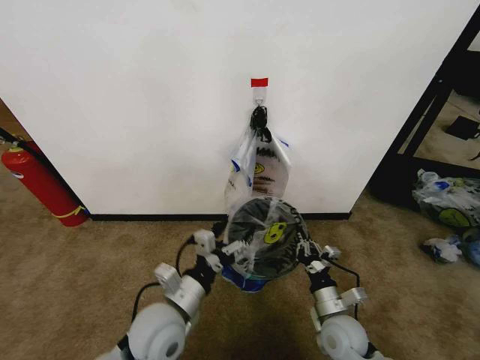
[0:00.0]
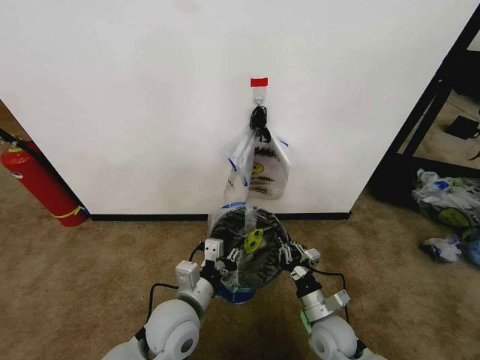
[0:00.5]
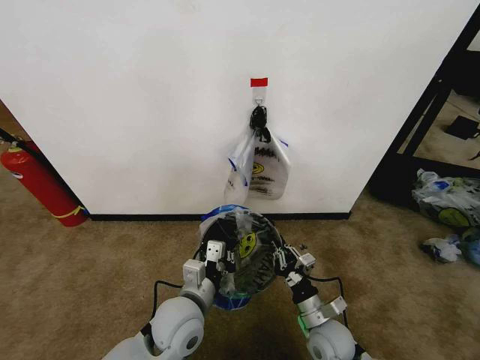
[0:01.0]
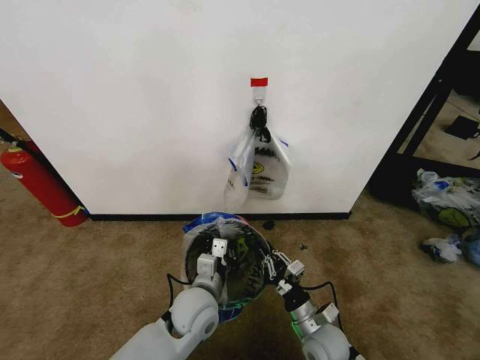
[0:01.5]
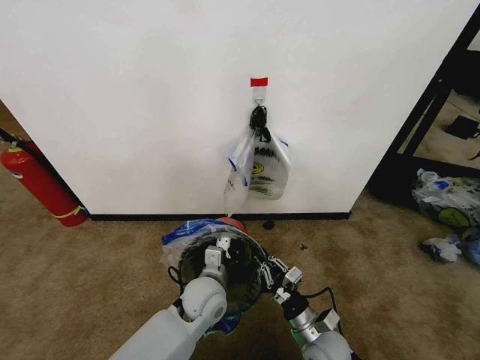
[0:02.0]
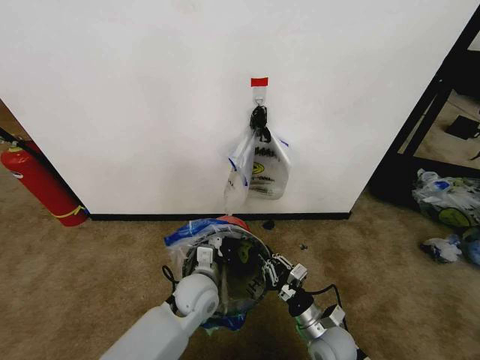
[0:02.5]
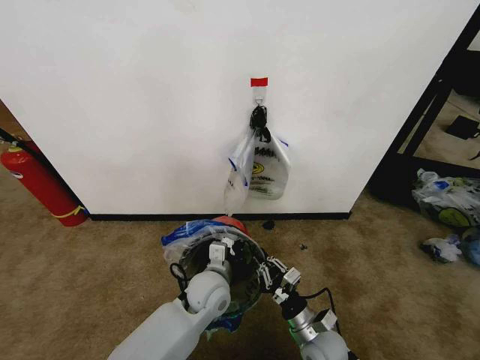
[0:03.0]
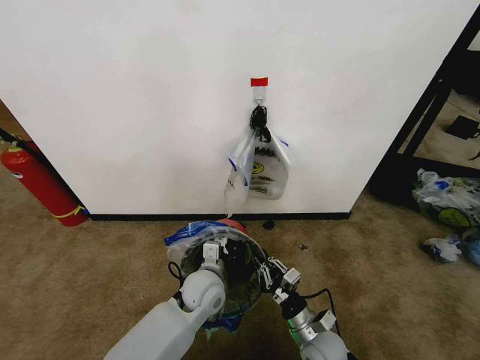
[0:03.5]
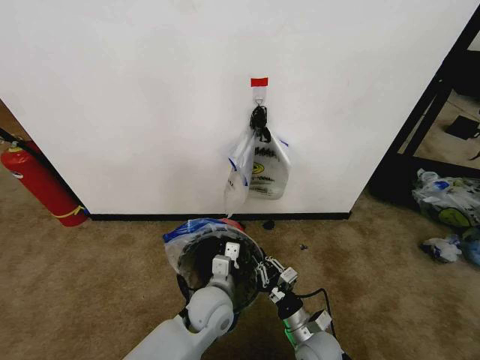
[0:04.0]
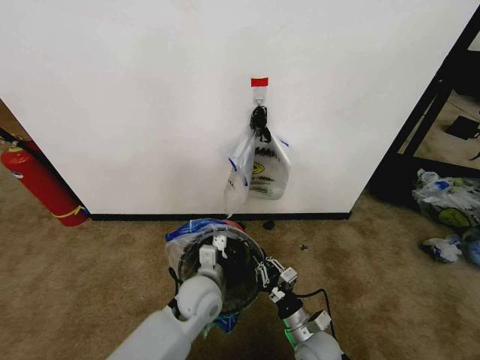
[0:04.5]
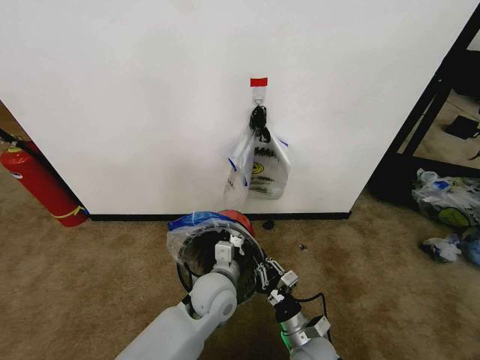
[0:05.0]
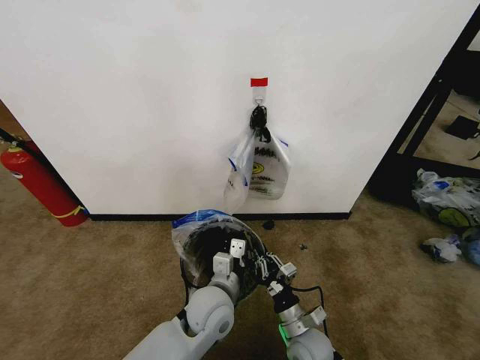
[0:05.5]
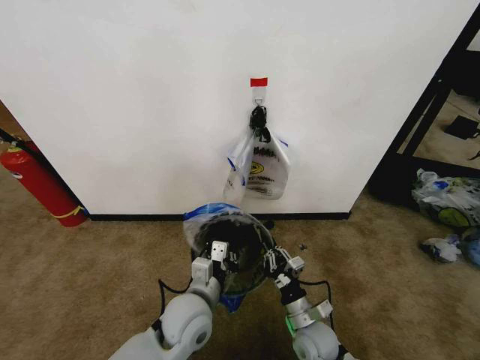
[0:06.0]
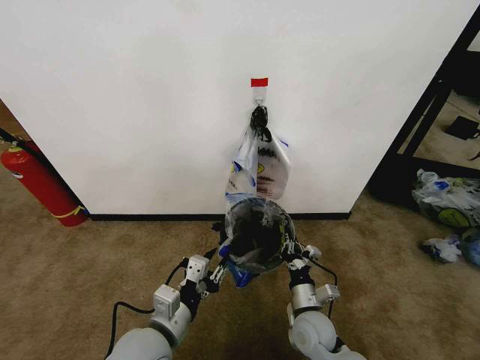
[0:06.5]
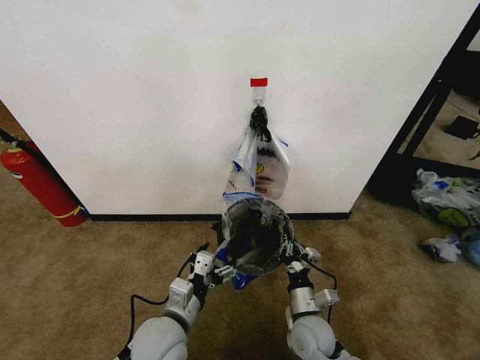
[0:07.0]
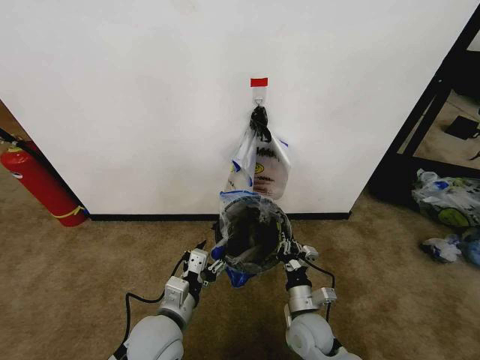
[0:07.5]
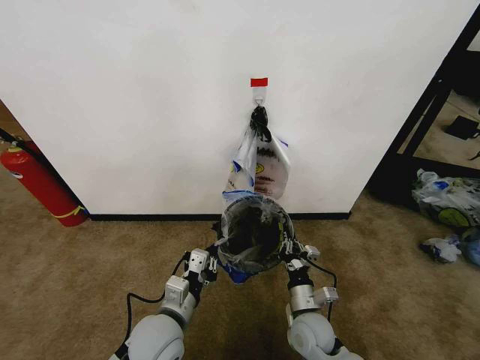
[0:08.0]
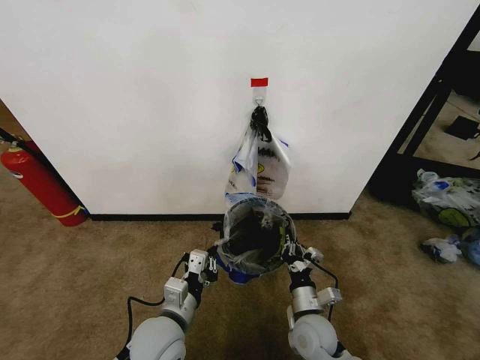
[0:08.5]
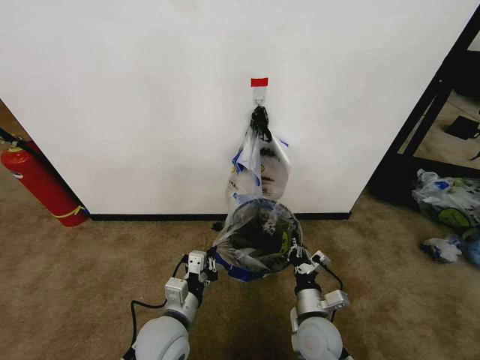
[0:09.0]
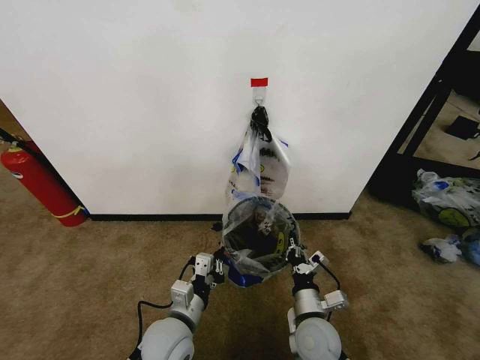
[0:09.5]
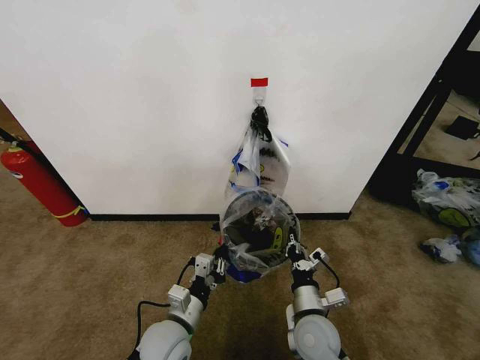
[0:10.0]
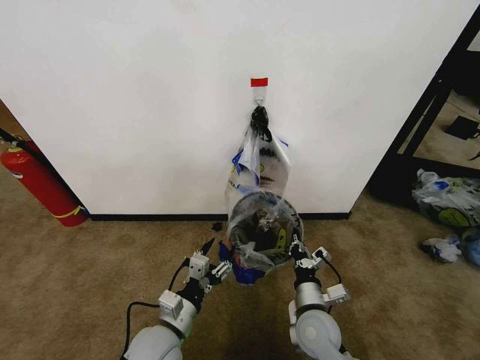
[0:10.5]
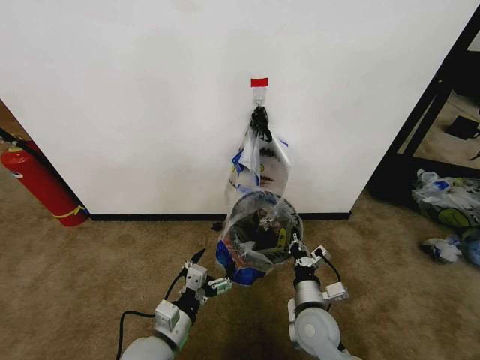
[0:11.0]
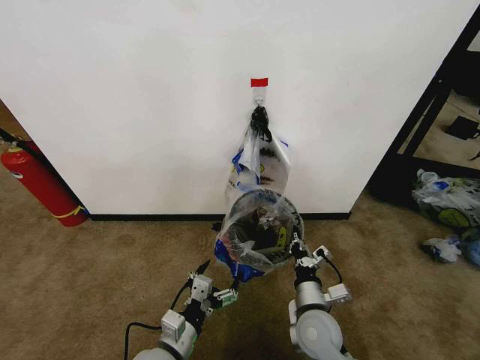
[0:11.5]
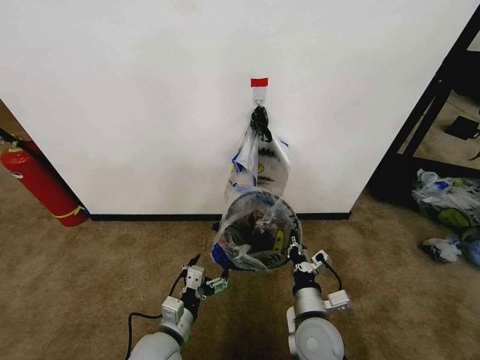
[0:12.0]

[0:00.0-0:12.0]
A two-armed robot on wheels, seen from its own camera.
Task of the whole recording: Pick up the garbage bag from the wall and place it over the trash bin.
0:00.0 to 0:02.0: The left gripper heads forward, to the right and downward, covering approximately 10 cm, and closes.
0:02.0 to 0:04.0: The grippers make only small movements.
0:04.0 to 0:06.0: The left gripper shifts by approximately 5 cm.
0:06.0 to 0:08.0: The left gripper is displaced to the left by roughly 5 cm, and opens, then closes once more.
0:08.0 to 0:10.0: The left gripper goes about 5 cm downward.
0:10.0 to 0:12.0: The left gripper opens.

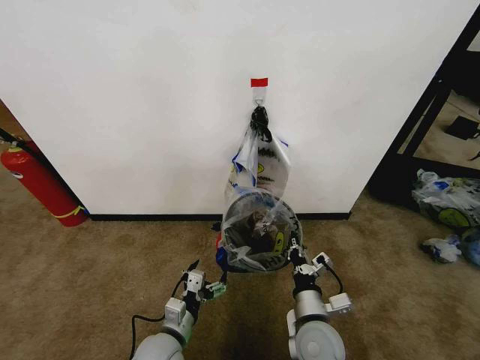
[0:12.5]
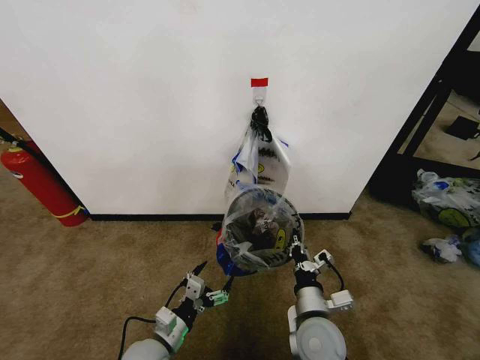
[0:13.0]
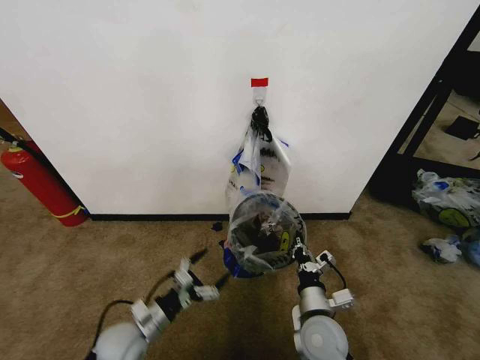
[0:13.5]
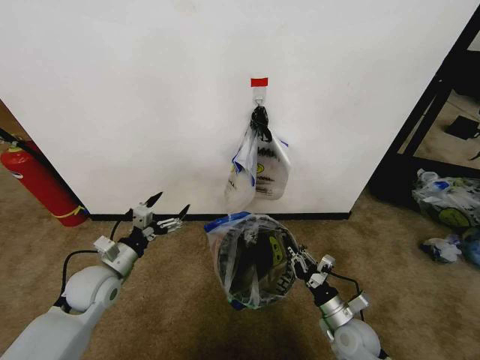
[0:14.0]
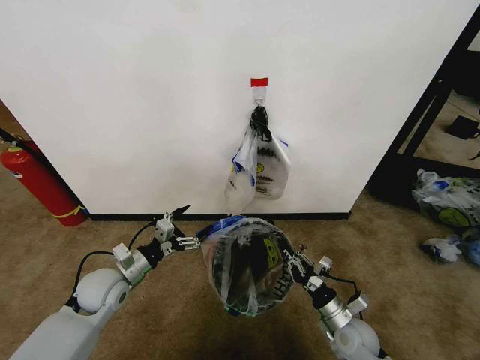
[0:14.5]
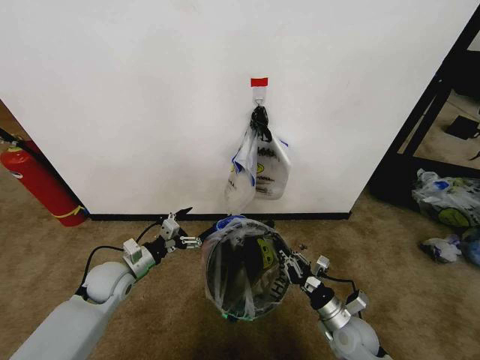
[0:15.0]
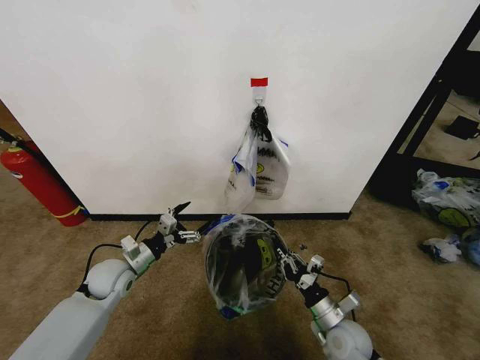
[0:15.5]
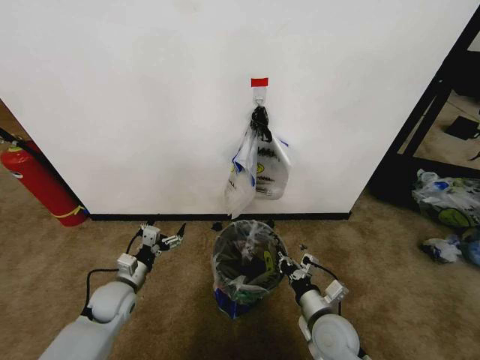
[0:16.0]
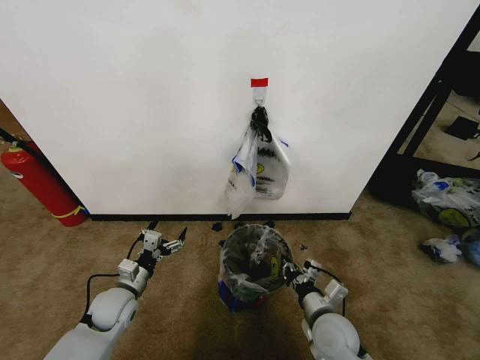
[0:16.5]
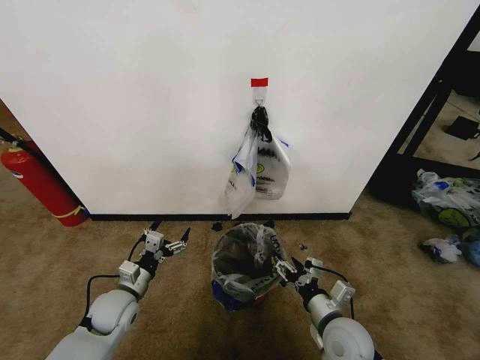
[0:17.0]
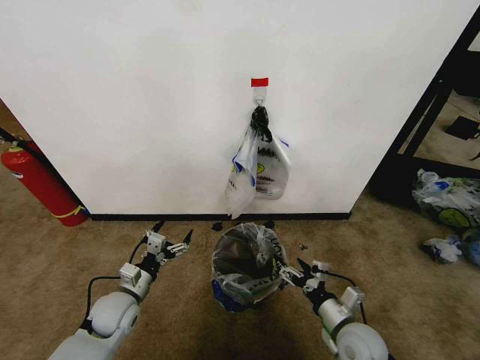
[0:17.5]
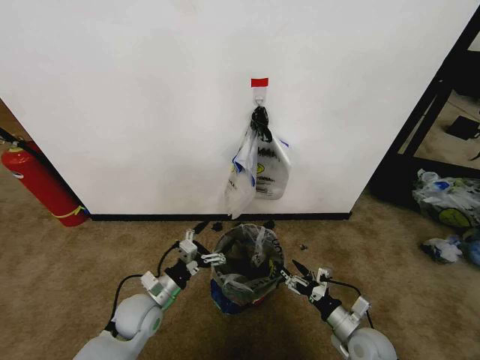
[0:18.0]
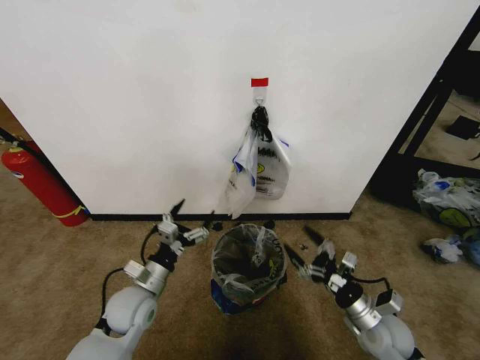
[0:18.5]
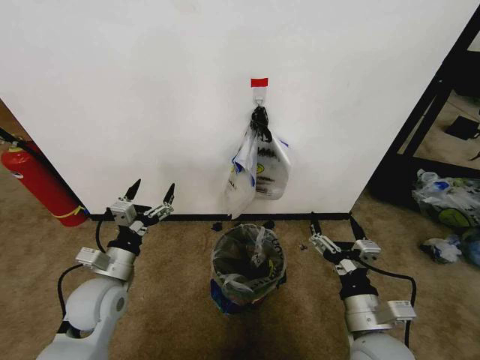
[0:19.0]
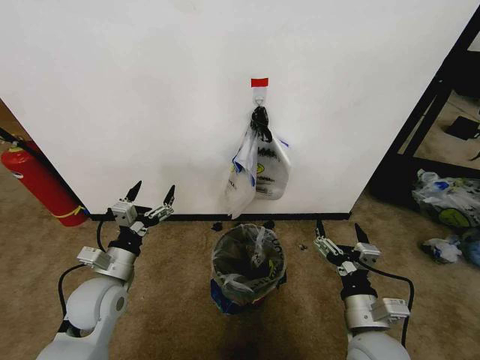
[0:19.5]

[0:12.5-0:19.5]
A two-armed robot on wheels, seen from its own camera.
Task of the whole recording: Pick up the garbage bag from the wall and place it over the trash bin.
0:12.5 to 0:14.5: The left gripper shifts roughly 20 cm to the left, forward and upward, while the right gripper is displaced to the right and downward by about 15 cm.
0:14.5 to 0:16.0: The left gripper heads downward, covering about 5 cm; the right gripper heads to the left and upward, covering about 10 cm.
0:16.0 to 0:17.5: The right gripper heads to the right, covering some 5 cm, and opens up.
0:17.5 to 0:19.5: The two grippers go roughly 10 cm upward.

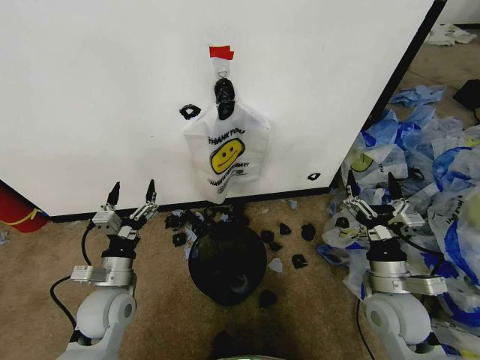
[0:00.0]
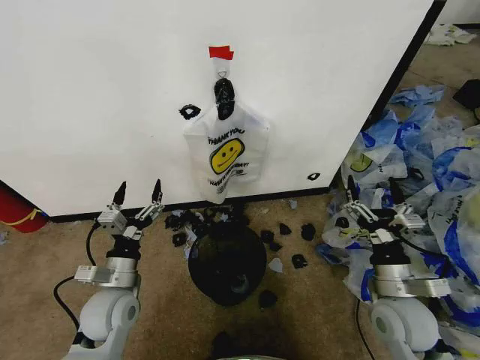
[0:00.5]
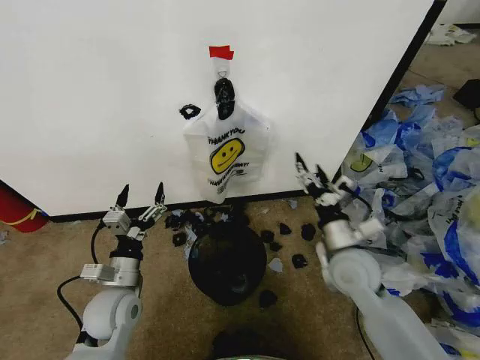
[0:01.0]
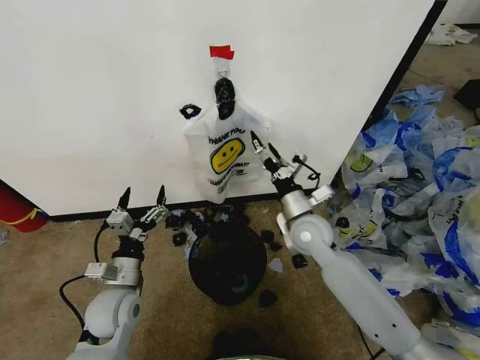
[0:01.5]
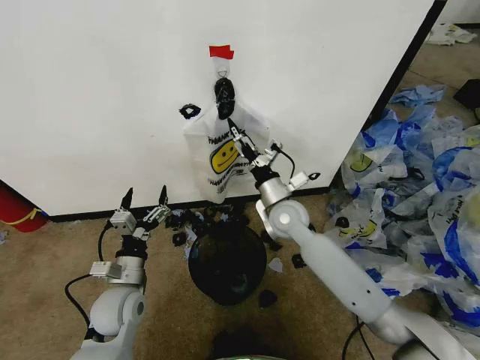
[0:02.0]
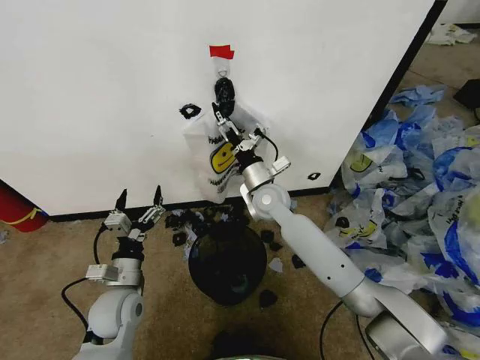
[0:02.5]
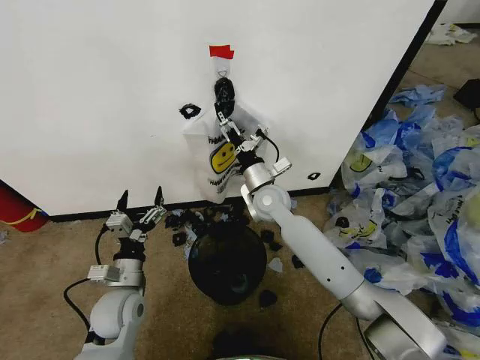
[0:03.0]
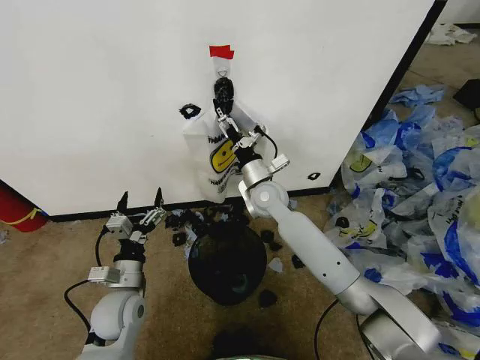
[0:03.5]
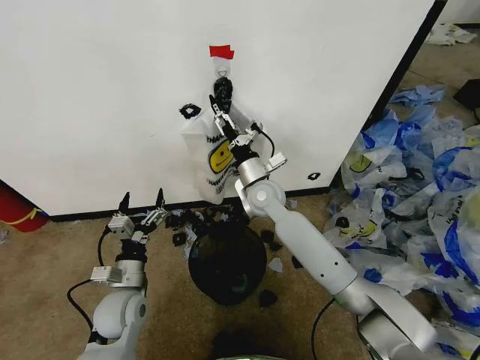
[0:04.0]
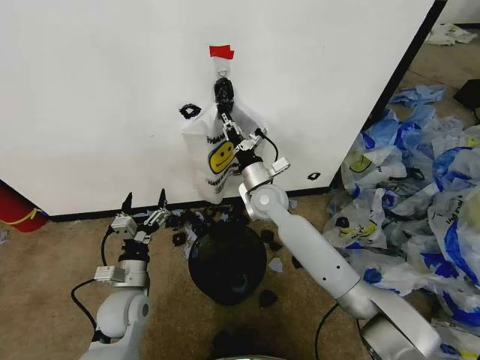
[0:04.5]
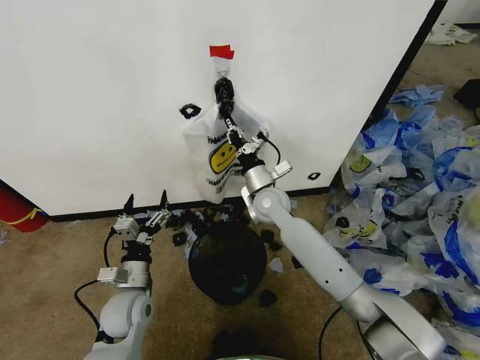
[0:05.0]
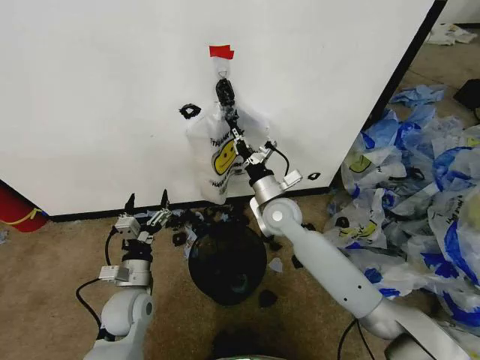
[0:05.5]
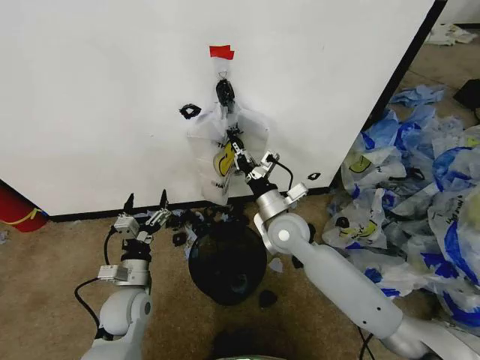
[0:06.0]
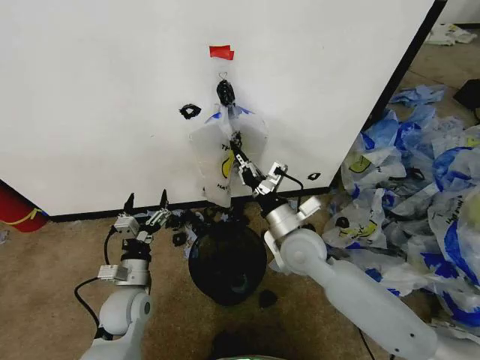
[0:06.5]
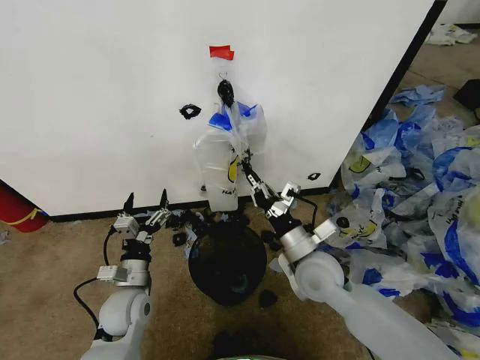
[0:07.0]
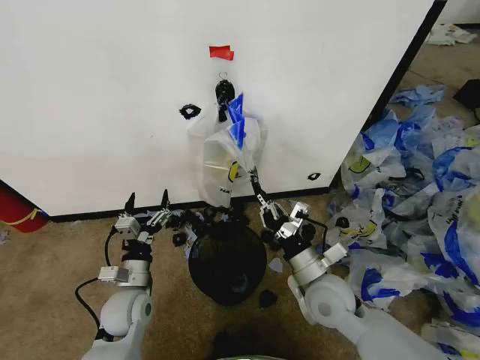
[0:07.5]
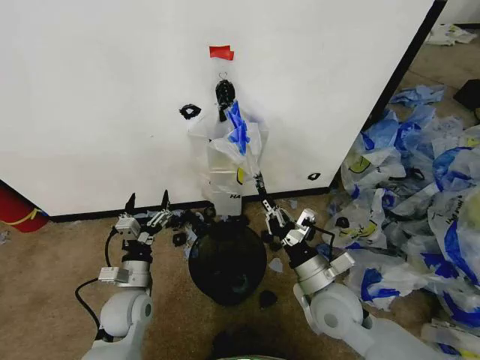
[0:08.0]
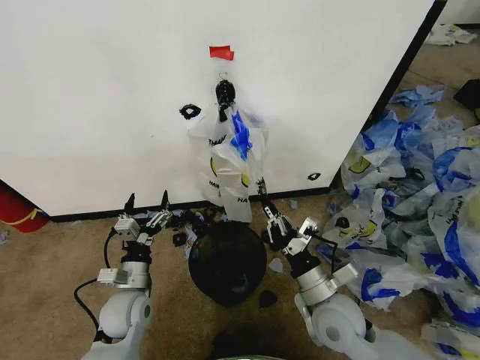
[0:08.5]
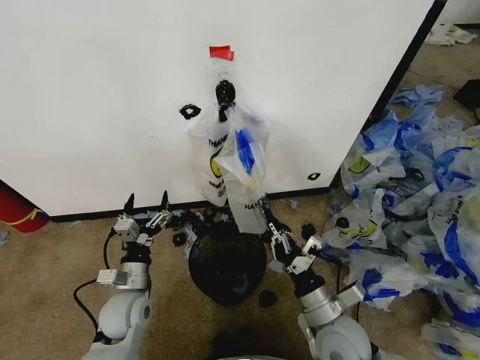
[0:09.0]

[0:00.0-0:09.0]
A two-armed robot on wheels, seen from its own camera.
Task of the whole recording: Pick up the garbage bag from the wall and place it over the trash bin.
0:02.0 to 0:04.5: The right gripper ends up roughly 5 cm from where it was, and closes up.
0:04.5 to 0:07.0: The right gripper heads backward and to the right, covering about 20 cm.
0:07.0 to 0:09.0: The right gripper goes approximately 10 cm backward and downward.
